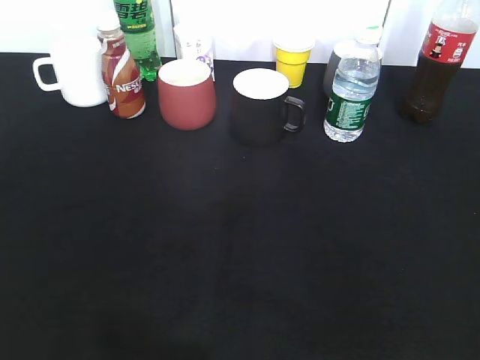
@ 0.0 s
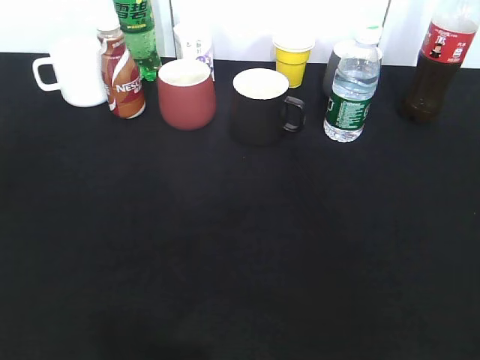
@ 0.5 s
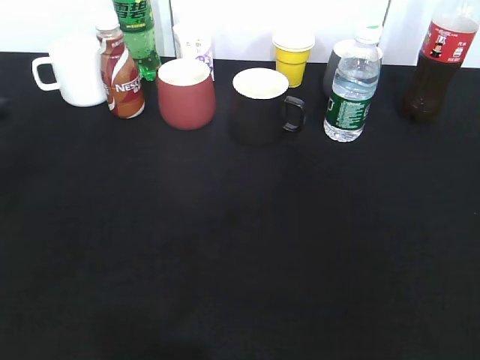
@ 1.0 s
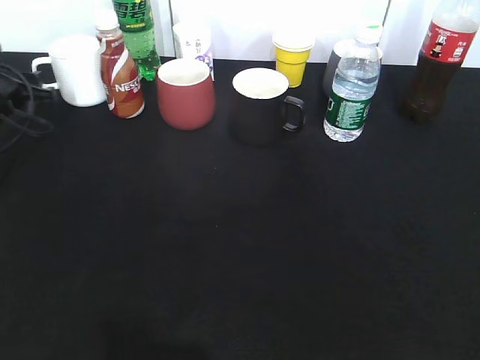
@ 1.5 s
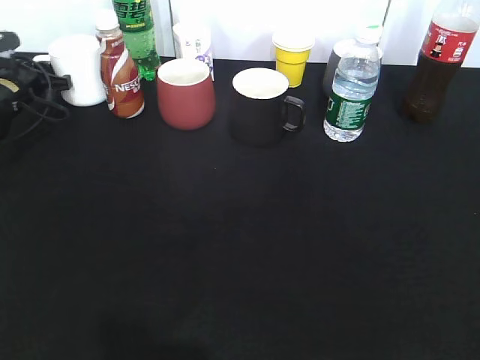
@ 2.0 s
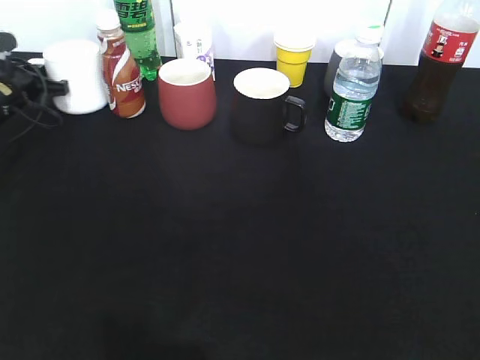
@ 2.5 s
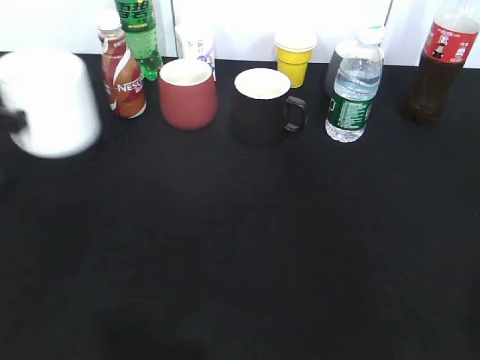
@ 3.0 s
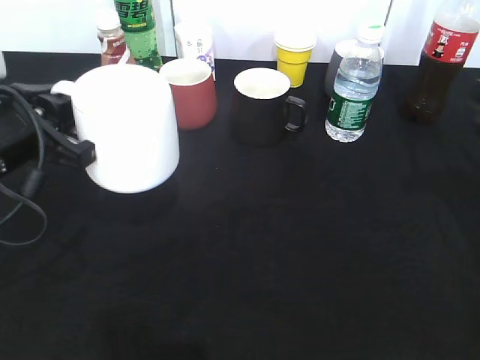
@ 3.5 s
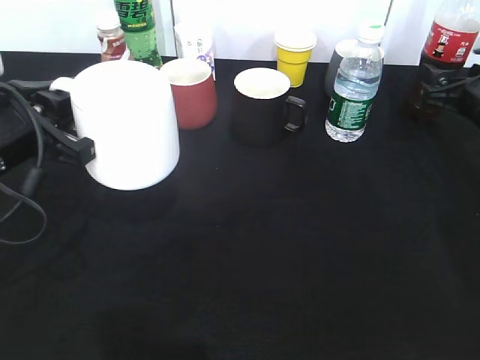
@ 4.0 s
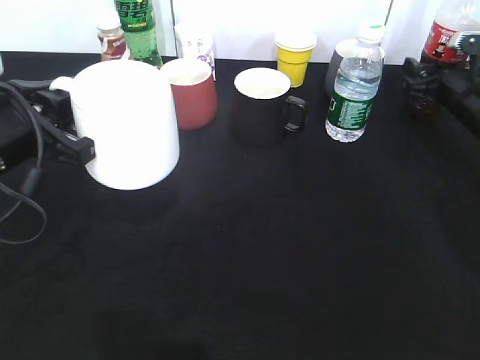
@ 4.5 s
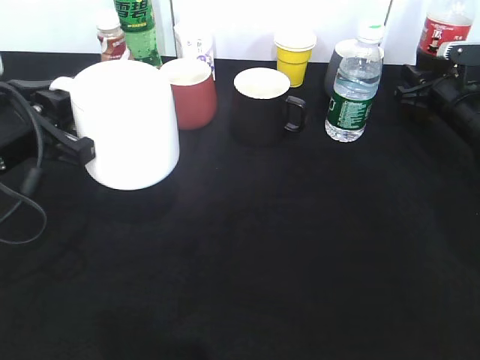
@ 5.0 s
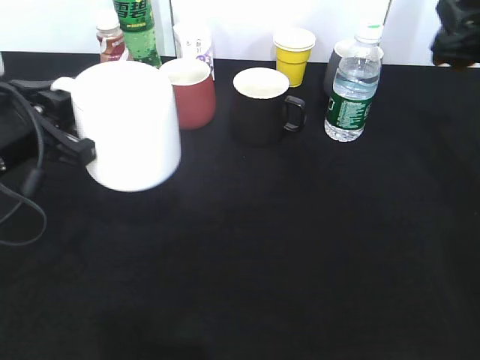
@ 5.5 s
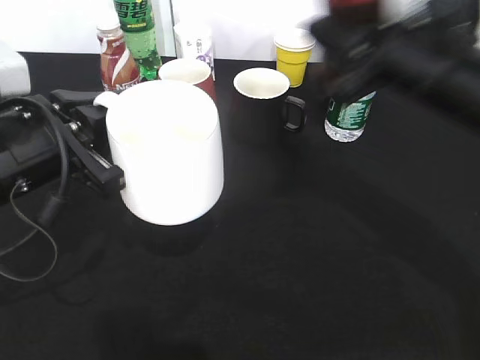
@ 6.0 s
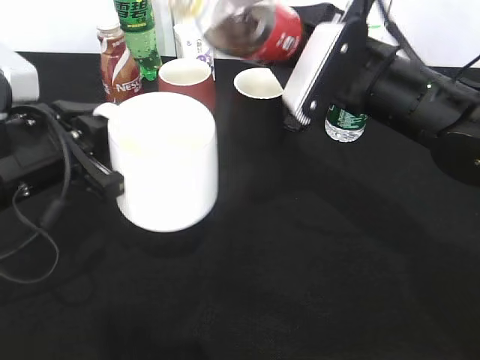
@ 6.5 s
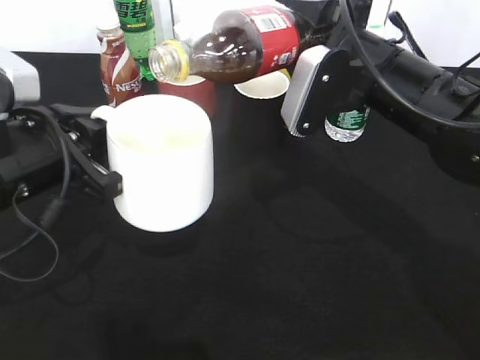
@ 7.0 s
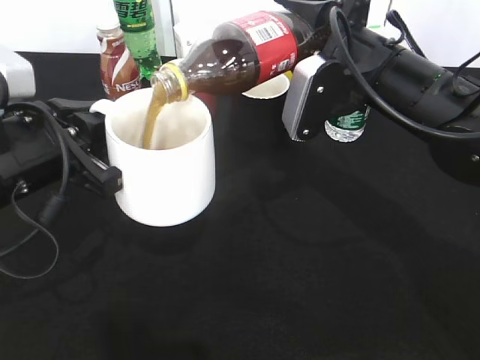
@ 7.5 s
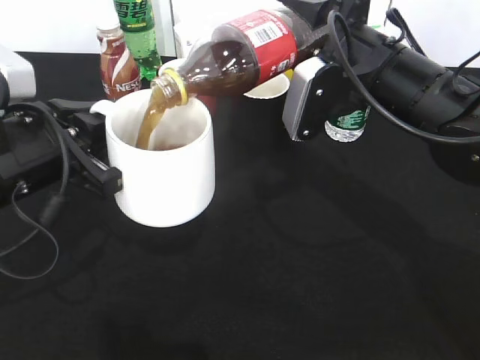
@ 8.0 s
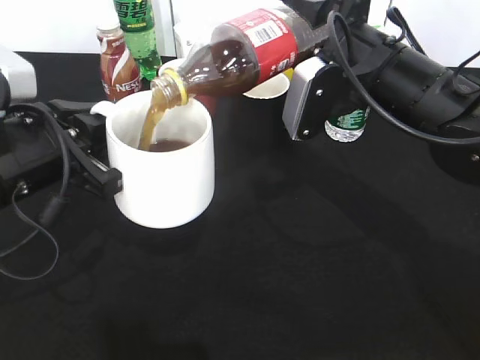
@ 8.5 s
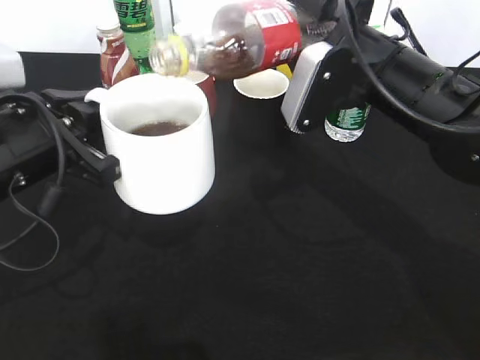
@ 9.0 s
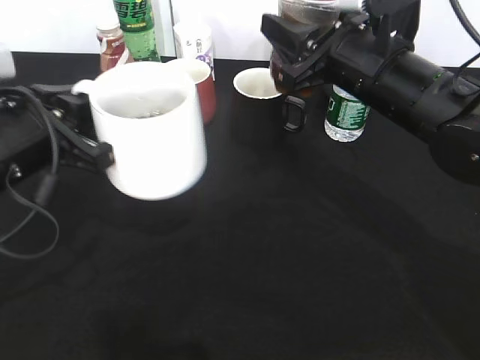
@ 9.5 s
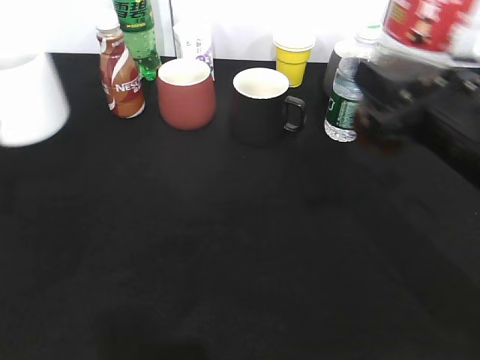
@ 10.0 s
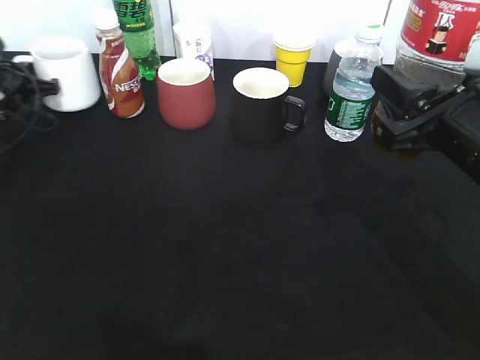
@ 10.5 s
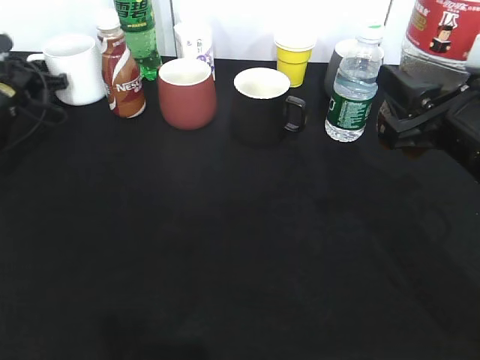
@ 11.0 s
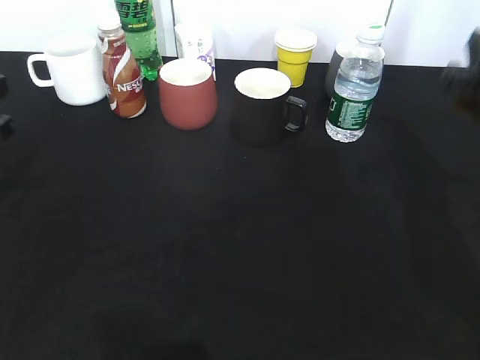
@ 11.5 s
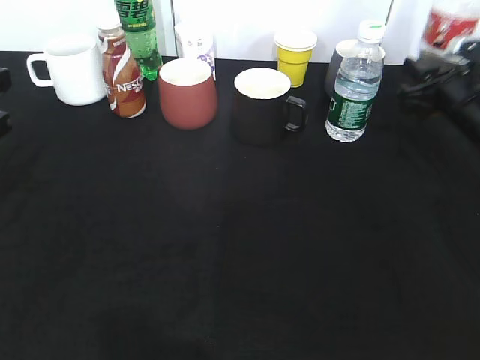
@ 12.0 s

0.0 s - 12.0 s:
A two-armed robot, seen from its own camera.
Step, 0.0 s - 2.0 s: Grasp the white cup with left gripper.
Step, 2.5 s - 3.5 s: Lift the white cup with left gripper.
Step, 4.0 s - 5.0 s: Grasp the bottle with cola with right gripper.
Step, 5.5 s - 9.0 s: Pour the cola from bottle to cup with right gripper.
Step, 9.5 s - 11.0 s: Place the white cup on the table with left gripper.
0.0 s - 2.0 s: The left gripper goes approximately 50 cm forward, and closes up.
2.0 s - 4.0 s: The right gripper goes about 40 cm forward; the left gripper is displaced backward, to the right and upward by approximately 30 cm, and closes its fingers.
4.0 s - 6.0 s: The right gripper heads to the left, upward and backward, covering about 20 cm, and closes up.
8.0 s - 10.0 s: The right gripper heads backward and to the right, covering some 10 cm. Meanwhile the left gripper is displaced to the left by about 15 cm.
10.0 s - 12.0 s: The left gripper goes forward and returns, some 20 cm each way, and opens its fingers, while the right gripper heads forward, to the right and downward, covering approximately 25 cm.

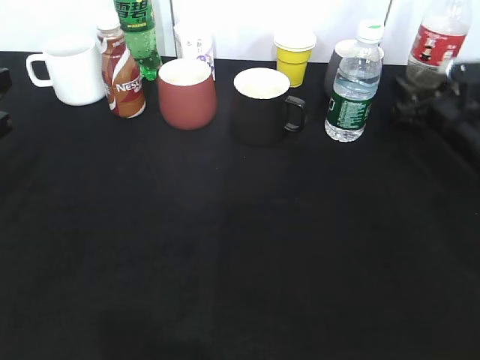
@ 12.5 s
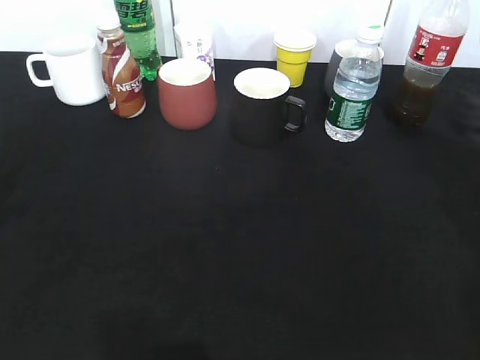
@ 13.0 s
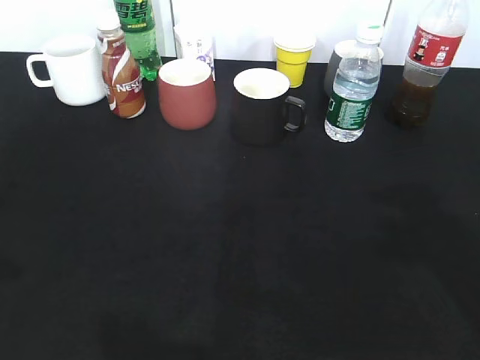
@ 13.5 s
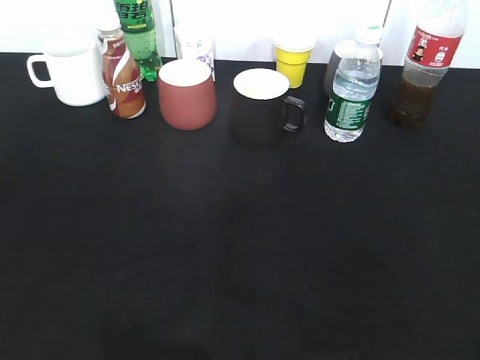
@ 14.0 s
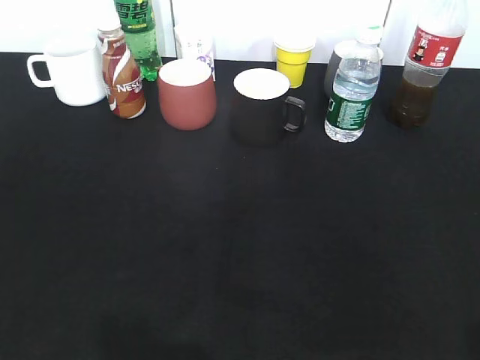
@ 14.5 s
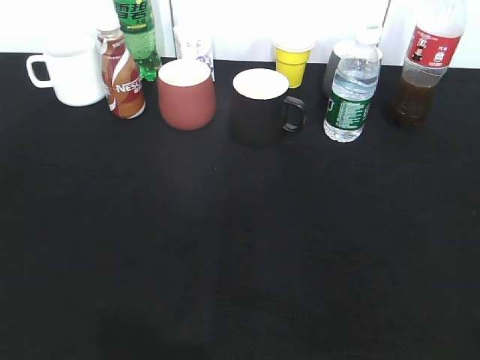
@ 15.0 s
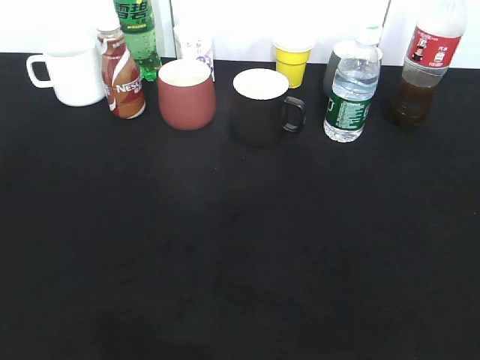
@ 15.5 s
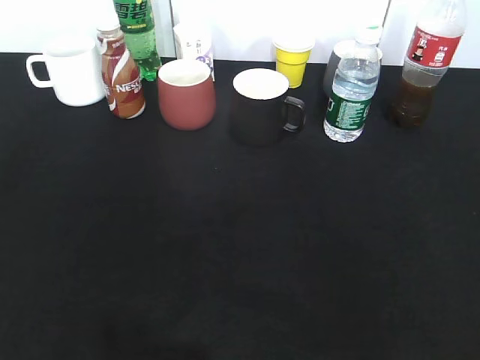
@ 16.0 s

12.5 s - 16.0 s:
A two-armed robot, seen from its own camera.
12.5 s - 14.5 s: The left gripper is displaced backward by roughly 25 cm, and opens; the right gripper moves backward and upward, approximately 40 cm.
14.5 s - 16.0 s: The left gripper closes its fingers.

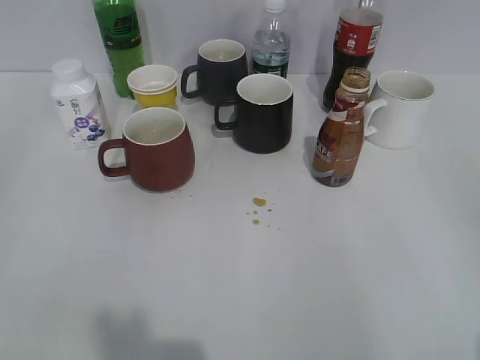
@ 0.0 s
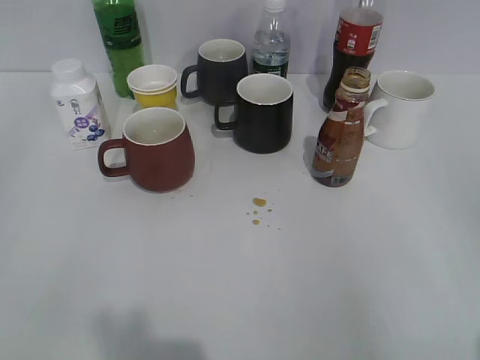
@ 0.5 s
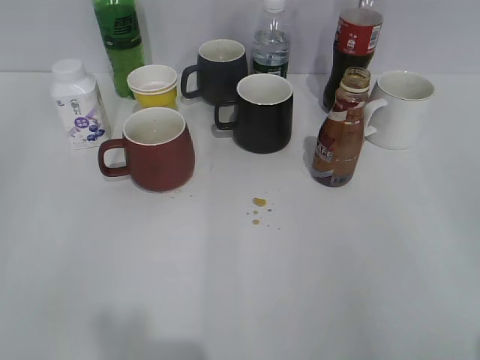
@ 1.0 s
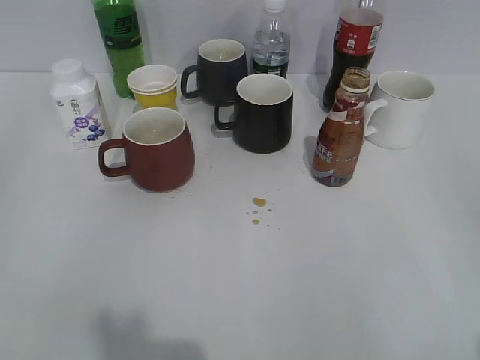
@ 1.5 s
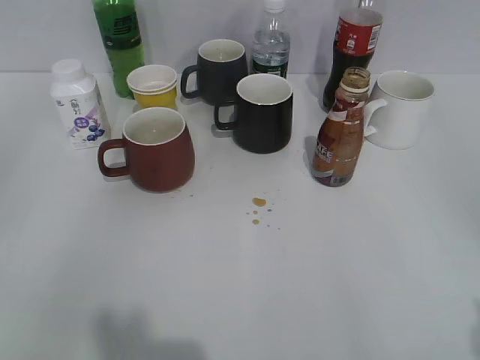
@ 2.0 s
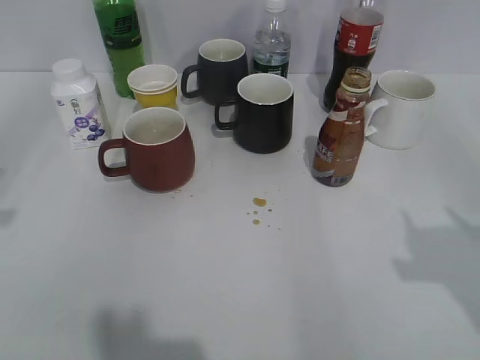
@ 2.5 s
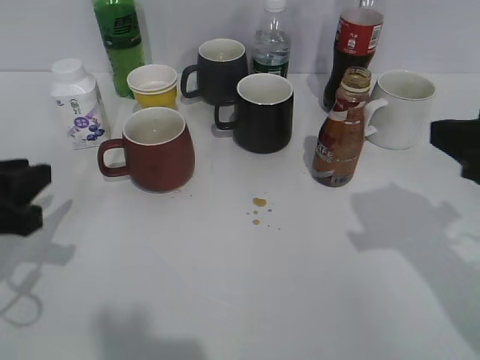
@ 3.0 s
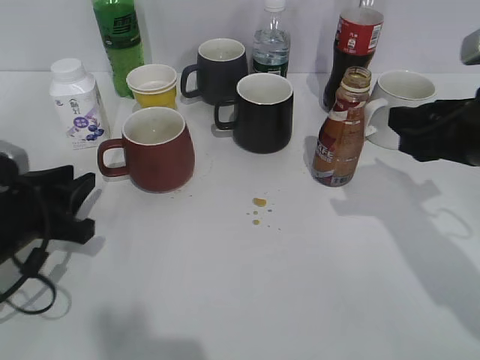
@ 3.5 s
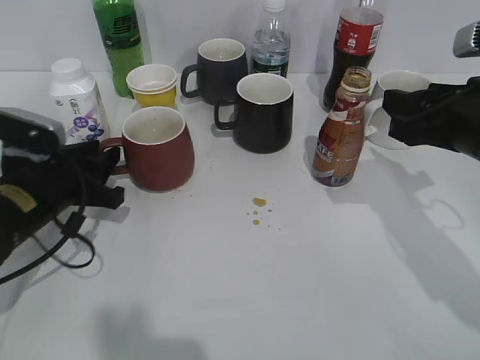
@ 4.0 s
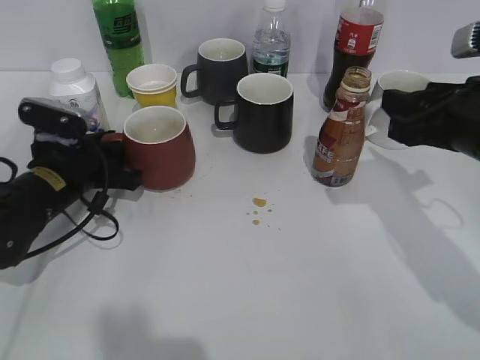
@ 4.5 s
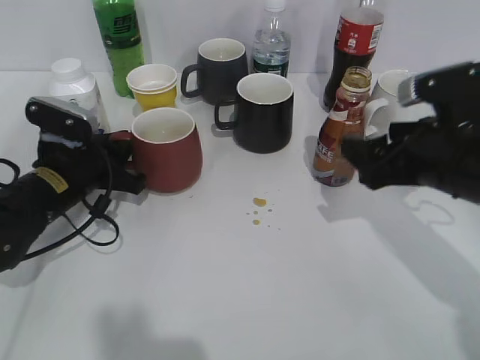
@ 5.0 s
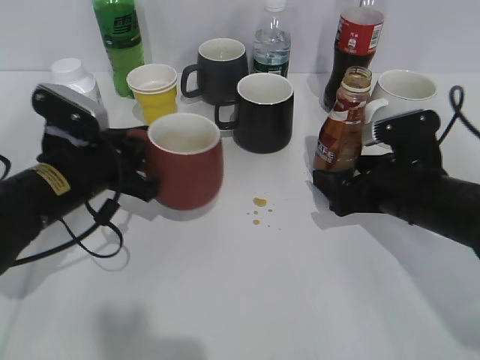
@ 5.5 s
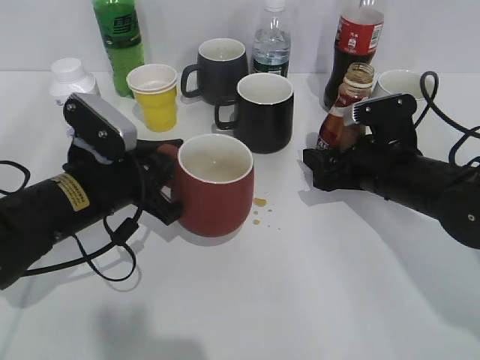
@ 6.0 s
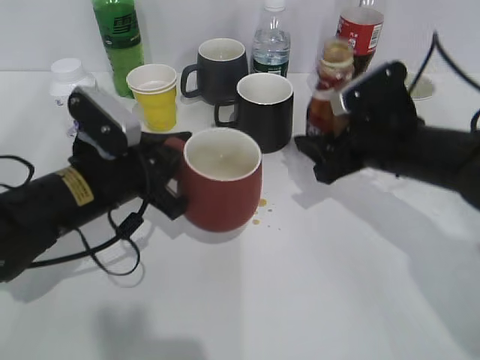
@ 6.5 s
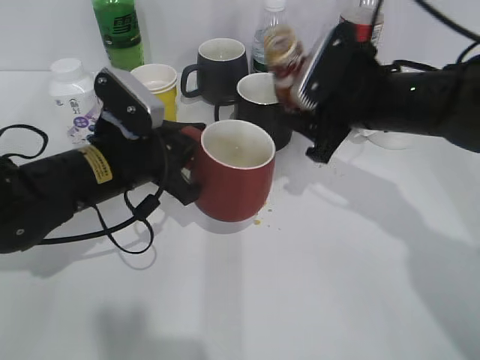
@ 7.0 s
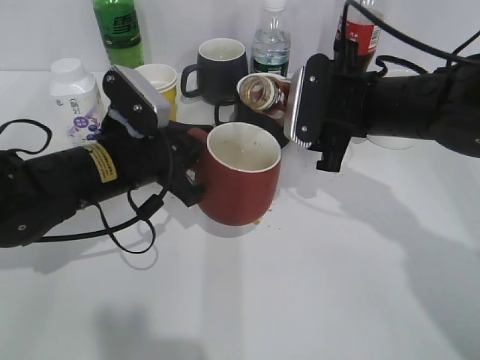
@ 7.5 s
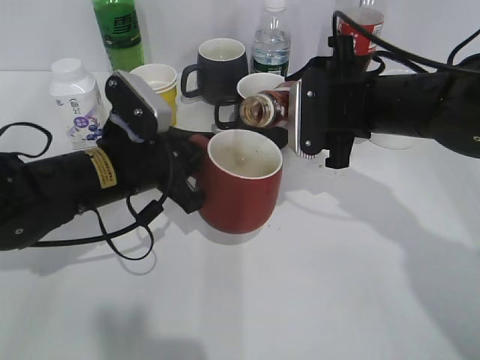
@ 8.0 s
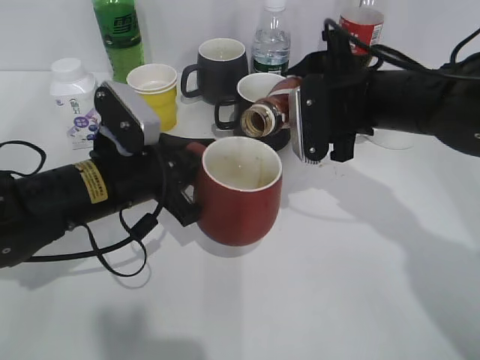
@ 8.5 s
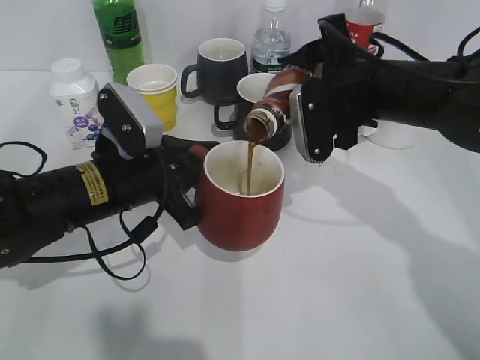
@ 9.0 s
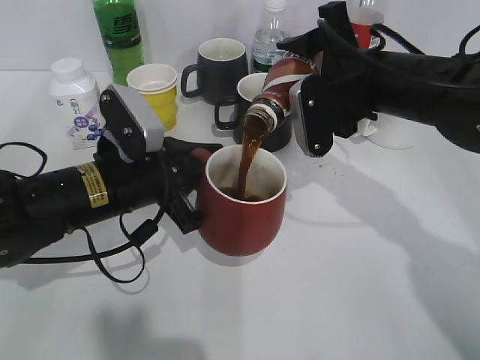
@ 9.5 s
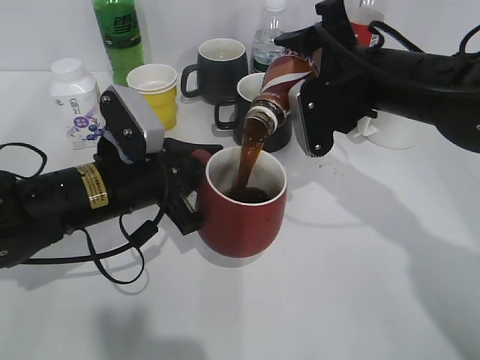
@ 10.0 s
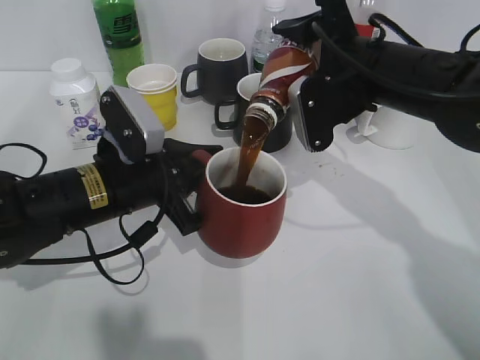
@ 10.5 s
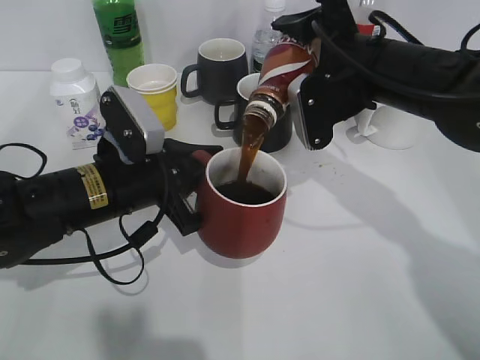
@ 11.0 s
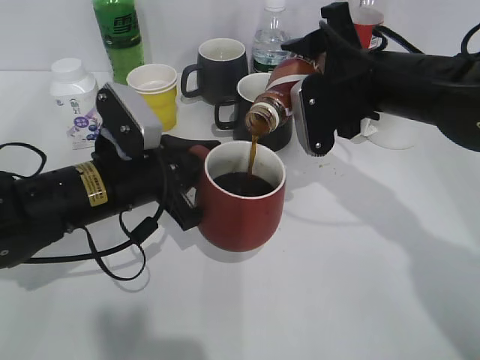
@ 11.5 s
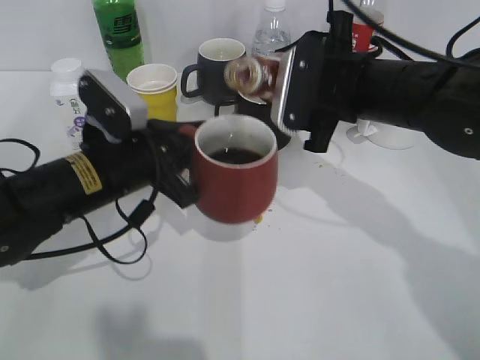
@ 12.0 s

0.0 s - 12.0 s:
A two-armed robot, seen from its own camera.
Step, 2.0 s - 4.5 s: Grasp the red cup with left gripper.
Step, 5.0 s - 6.0 s: Grasp the bottle with coffee with right gripper.
Step, 6.5 s - 11.5 s: Pour the coffee from bottle to cup with right gripper.
2.0 s - 4.0 s: The left gripper is displaced forward, downward and to the right by roughly 30 cm. Meanwhile the right gripper moves forward, some 25 cm.
4.0 s - 6.0 s: The left gripper is displaced to the right by about 5 cm, and closes up; the right gripper goes about 10 cm downward and forward, and opens, then closes again.
6.0 s - 8.0 s: The right gripper goes some 10 cm upward.
